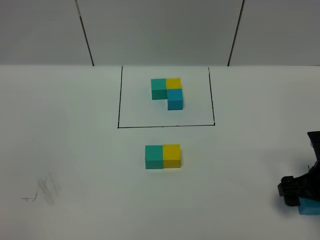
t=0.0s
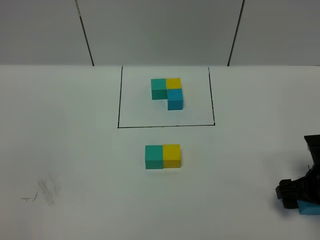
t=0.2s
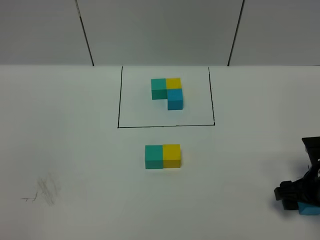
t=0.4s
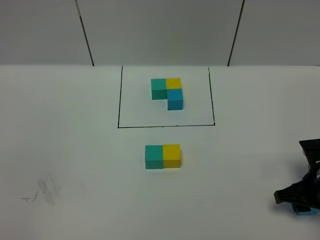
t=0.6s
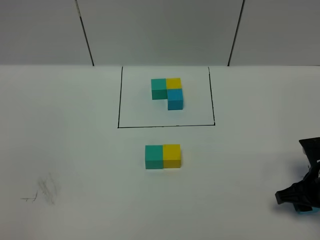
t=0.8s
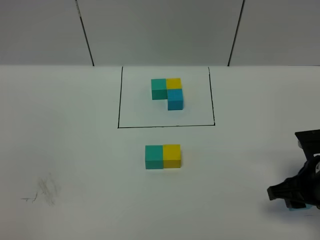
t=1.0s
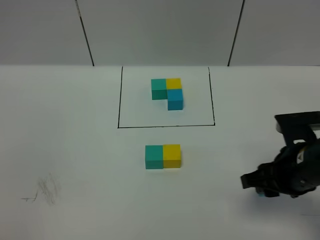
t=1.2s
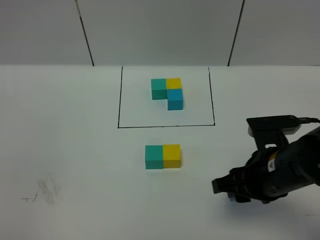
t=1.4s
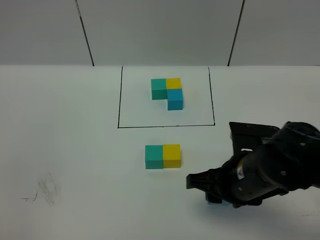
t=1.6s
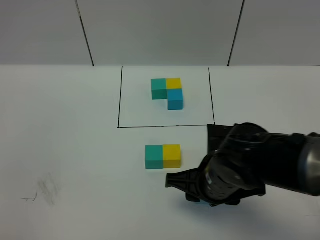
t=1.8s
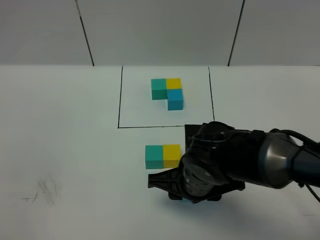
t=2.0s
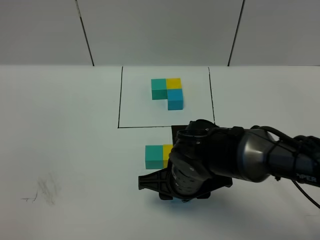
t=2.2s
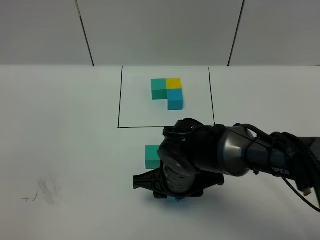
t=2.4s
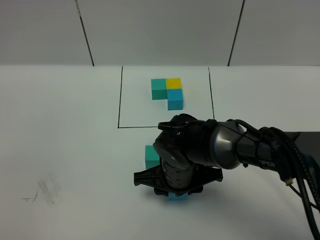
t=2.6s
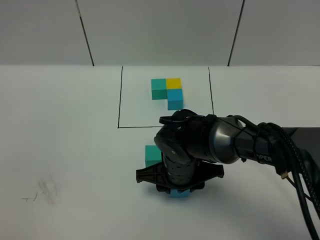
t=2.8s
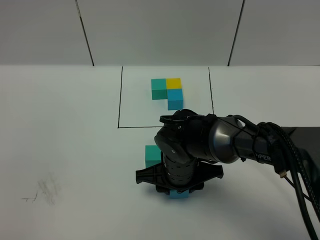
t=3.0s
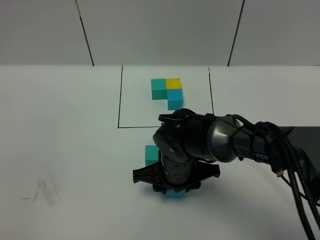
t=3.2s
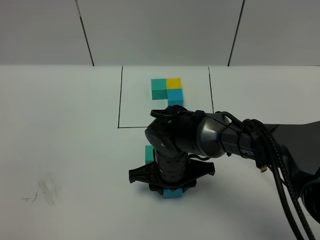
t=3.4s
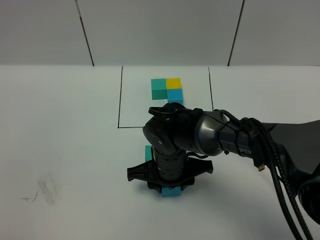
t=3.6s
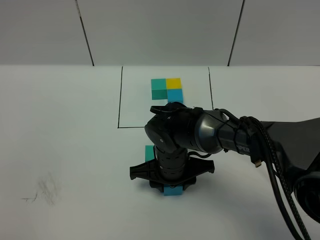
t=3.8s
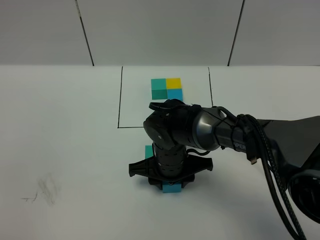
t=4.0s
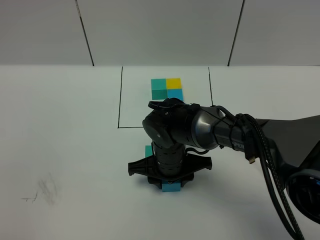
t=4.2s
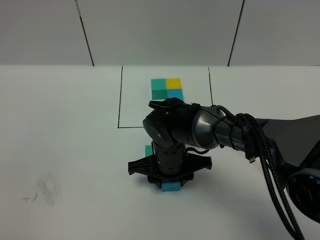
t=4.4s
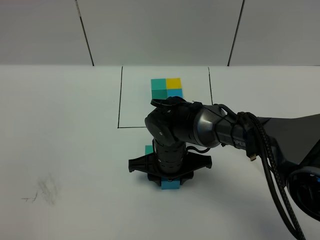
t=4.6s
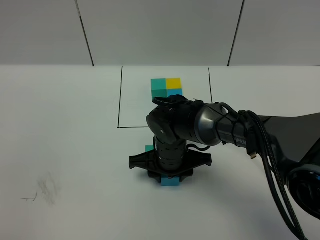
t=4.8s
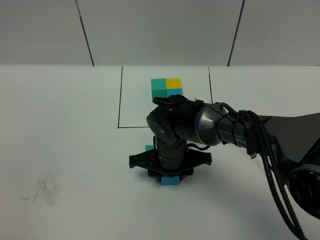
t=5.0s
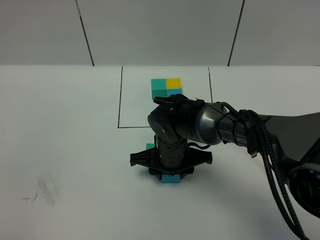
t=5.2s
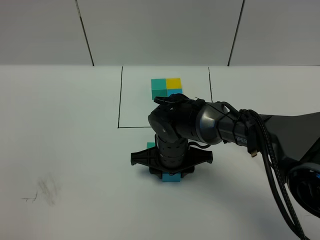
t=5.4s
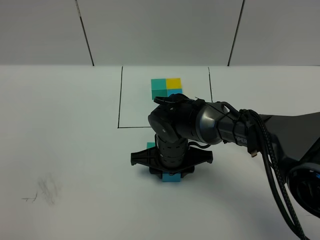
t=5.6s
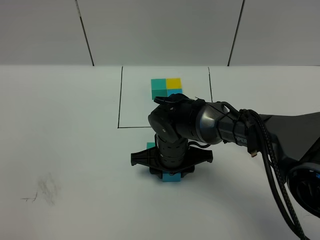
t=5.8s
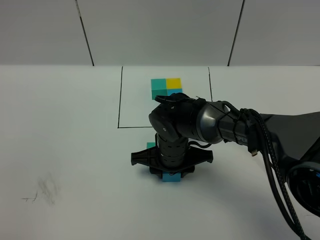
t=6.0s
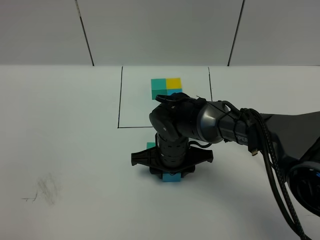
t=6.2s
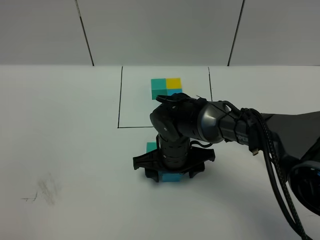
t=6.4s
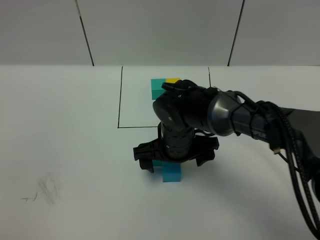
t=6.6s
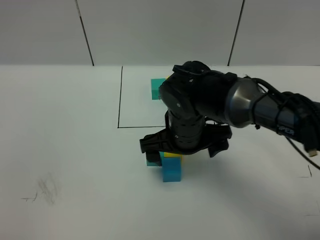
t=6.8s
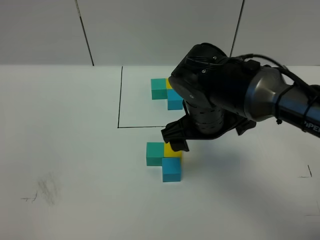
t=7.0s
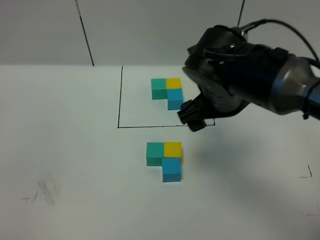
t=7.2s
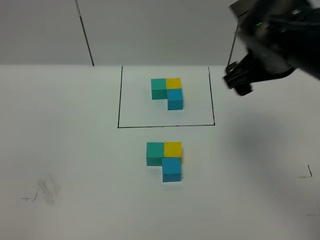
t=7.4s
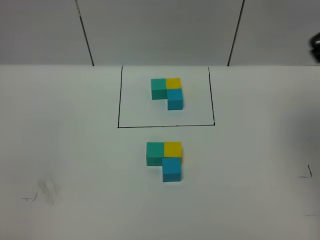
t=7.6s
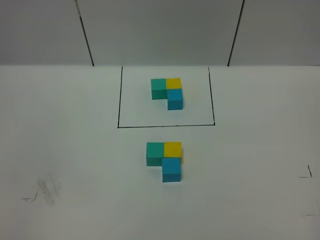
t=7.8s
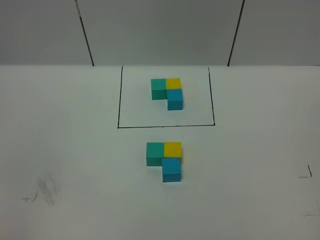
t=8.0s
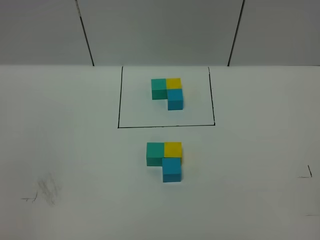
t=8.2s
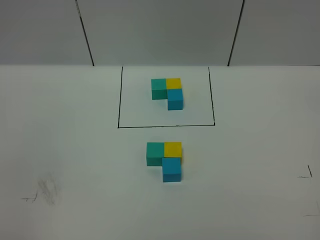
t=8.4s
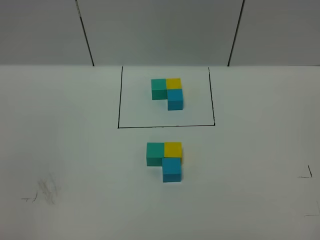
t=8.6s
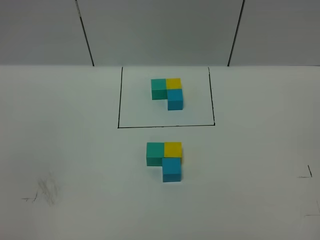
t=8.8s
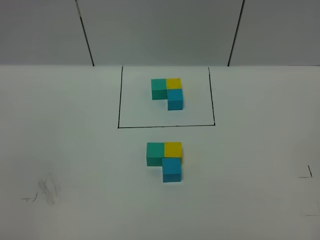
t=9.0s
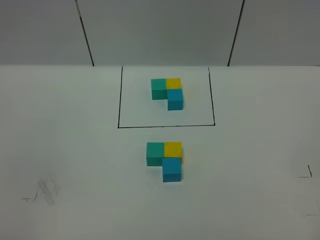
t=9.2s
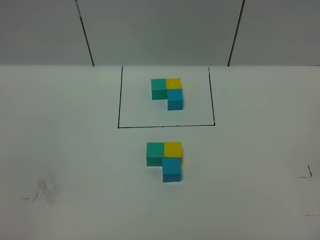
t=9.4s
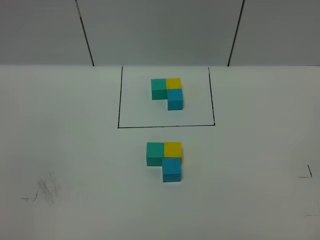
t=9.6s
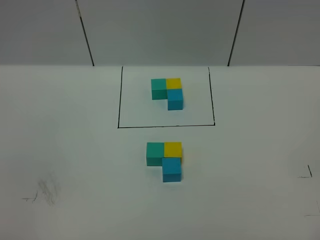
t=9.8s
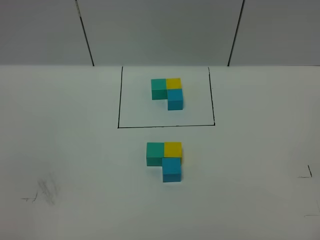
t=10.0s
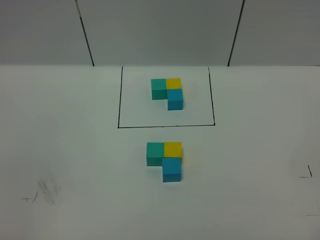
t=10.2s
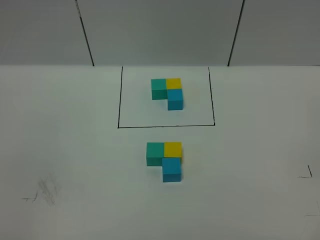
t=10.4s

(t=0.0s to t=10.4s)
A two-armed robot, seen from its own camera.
Task of the whole recording: According to the building block template in front, assemble the scattered blocks together.
Step, t=0.0s - t=6.4s: Put the blue cube in the front of the yellow cube.
t=0.0s - t=1.4s: The right gripper is displaced to the left and upward by some 15 cm, and closes up.
t=1.4s - t=3.0s: The right gripper is displaced to the left, downward and forward by about 15 cm.
t=3.0s - t=6.0s: The grippers stay close to where they were, moving slightly.
t=6.0s - t=7.4s: The right gripper moves upward and to the right, approximately 30 cm, and opens.
t=7.4s - t=9.0s: The right gripper travels backward and to the right by roughly 35 cm.
